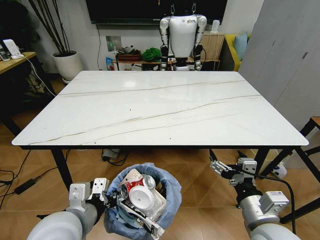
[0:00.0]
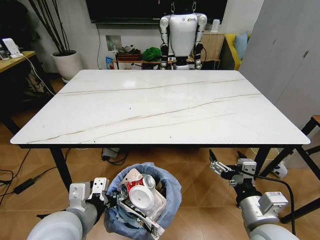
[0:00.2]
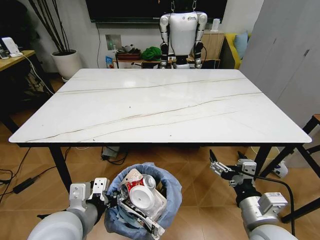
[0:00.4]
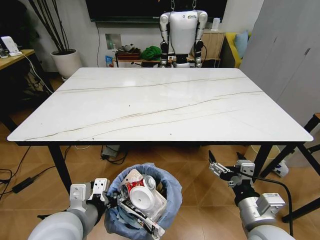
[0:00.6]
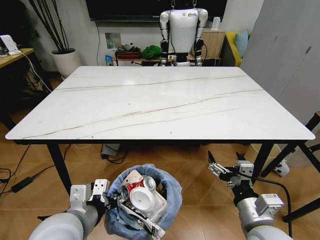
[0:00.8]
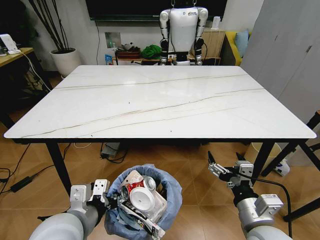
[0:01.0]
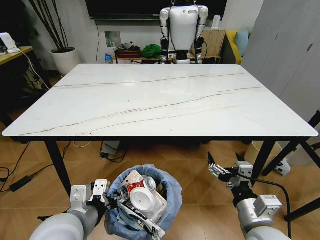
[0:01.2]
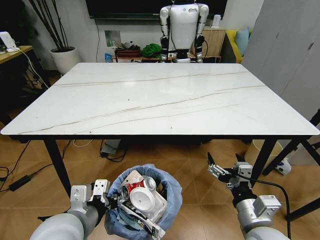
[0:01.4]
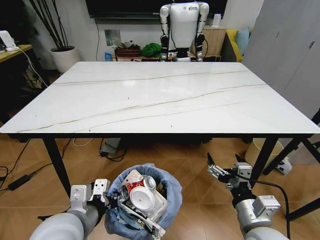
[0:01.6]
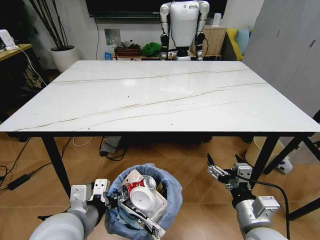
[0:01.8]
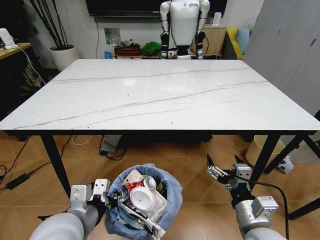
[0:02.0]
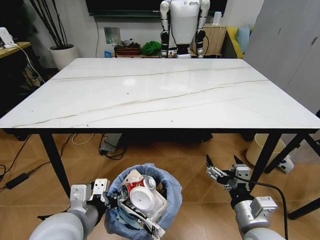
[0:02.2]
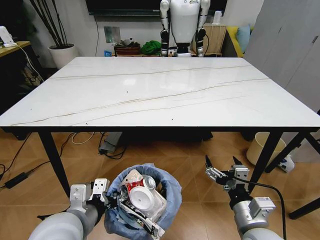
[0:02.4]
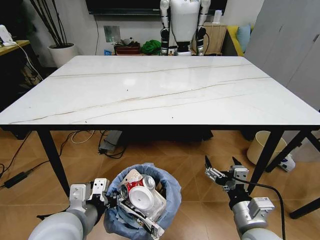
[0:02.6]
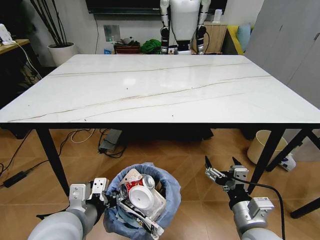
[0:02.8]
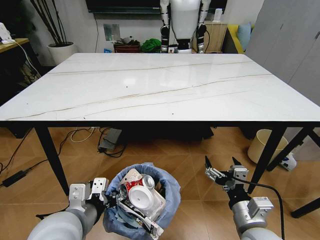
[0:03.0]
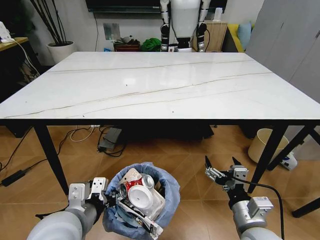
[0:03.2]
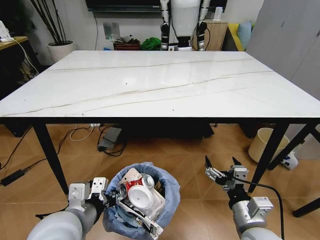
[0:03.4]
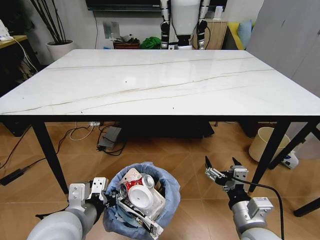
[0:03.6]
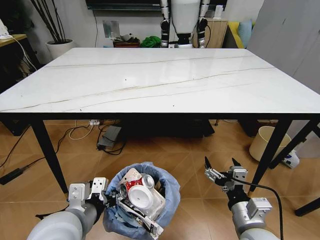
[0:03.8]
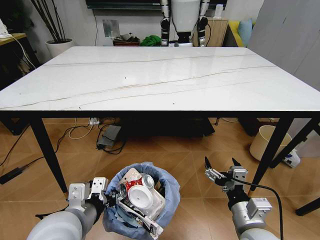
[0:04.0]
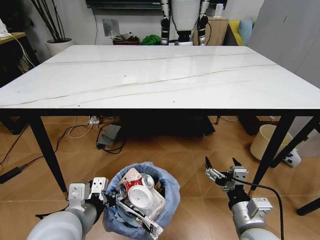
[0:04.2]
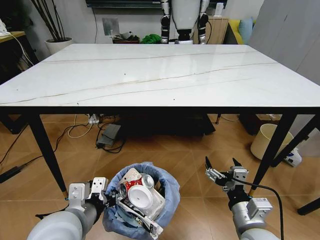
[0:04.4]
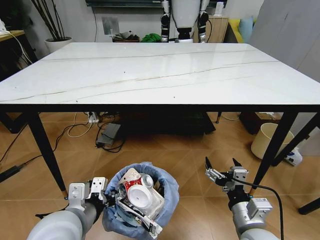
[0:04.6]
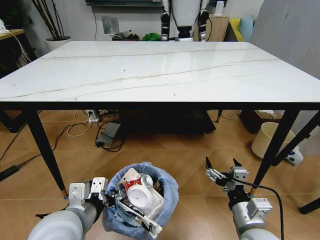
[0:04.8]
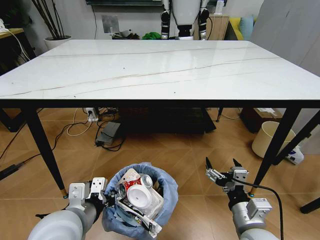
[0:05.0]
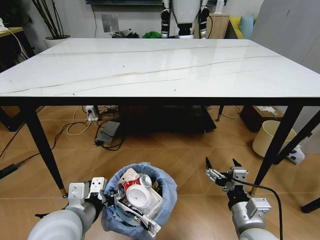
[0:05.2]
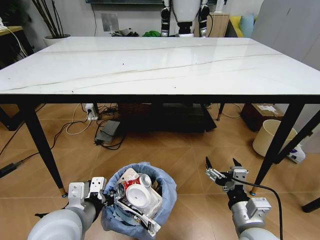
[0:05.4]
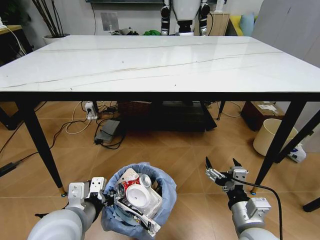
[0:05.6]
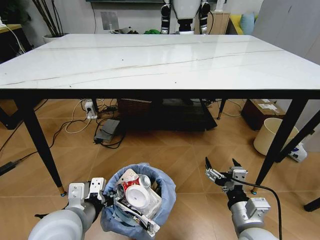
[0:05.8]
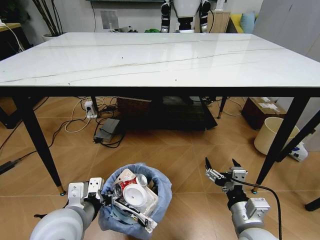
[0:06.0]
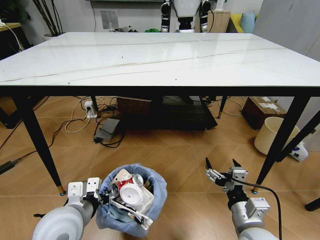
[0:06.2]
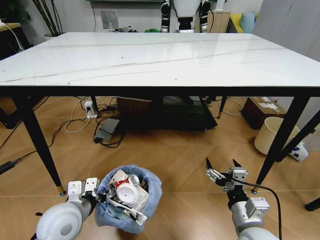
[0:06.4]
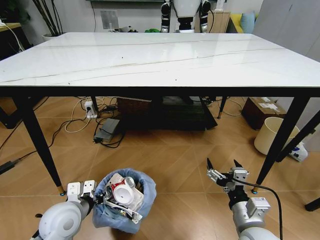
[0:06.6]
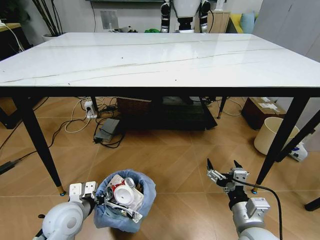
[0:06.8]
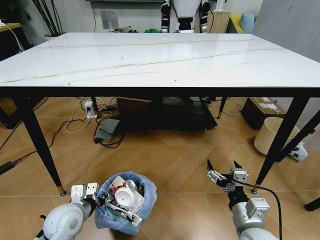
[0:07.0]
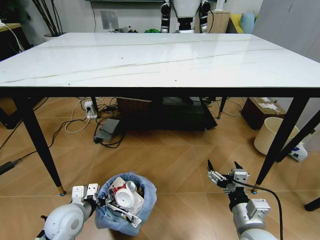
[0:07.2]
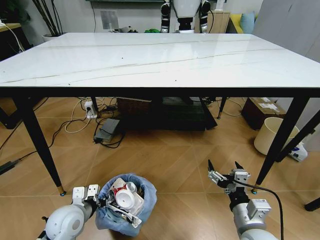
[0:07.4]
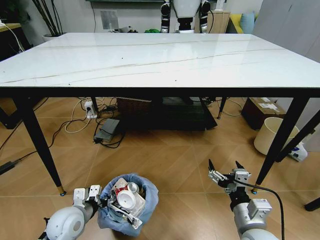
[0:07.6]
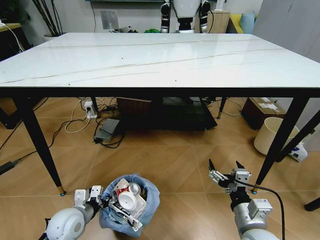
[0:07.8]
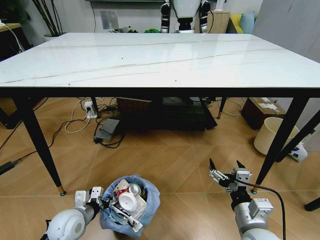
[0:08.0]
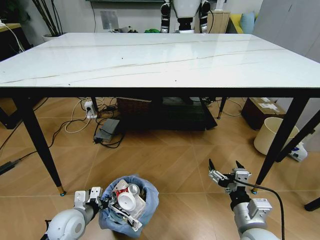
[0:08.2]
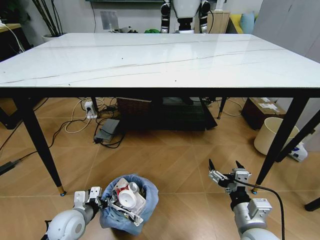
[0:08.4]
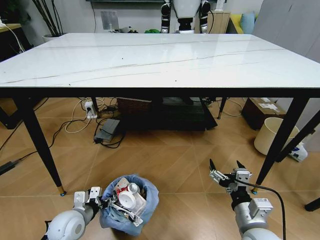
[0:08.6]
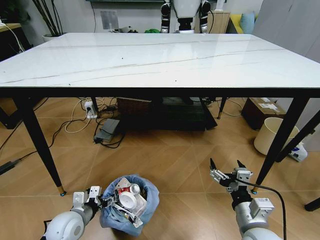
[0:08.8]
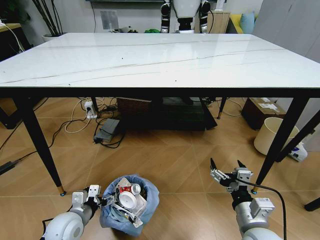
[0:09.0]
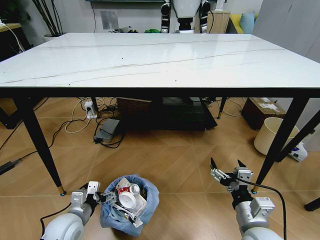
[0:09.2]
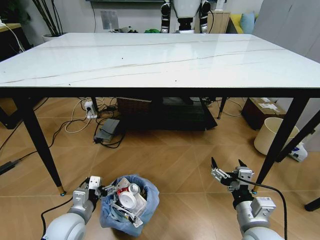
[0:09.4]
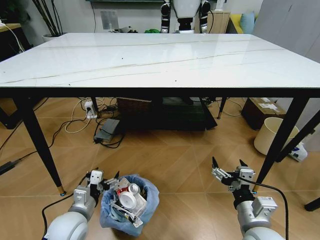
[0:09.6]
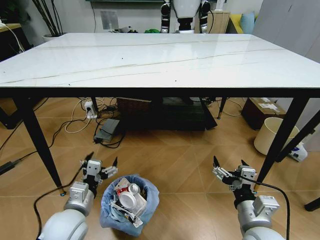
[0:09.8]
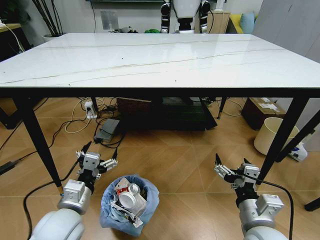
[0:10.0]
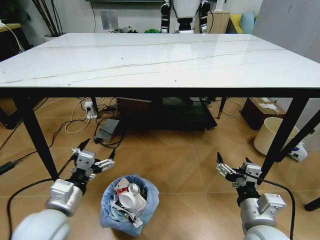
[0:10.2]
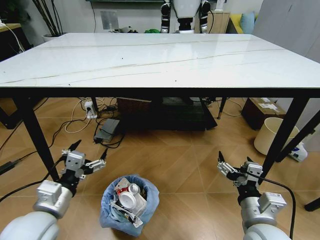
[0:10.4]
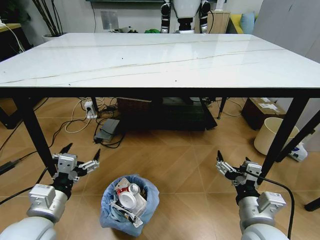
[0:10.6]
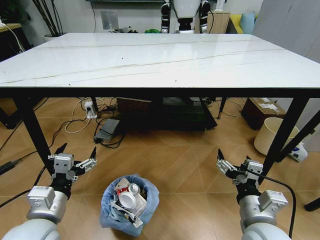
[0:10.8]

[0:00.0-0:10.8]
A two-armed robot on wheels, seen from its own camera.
Task of the whole recording: Pick up the trash bin and place the trash from the table into it.
0:06.2 to 0:07.8: The left gripper shifts approximately 15 cm downward and to the left.
0:07.8 to 0:09.2: The left gripper opens.
0:09.2 to 0:10.8: The left gripper moves upward, approximately 15 cm.

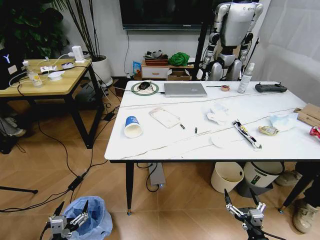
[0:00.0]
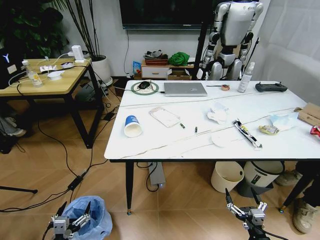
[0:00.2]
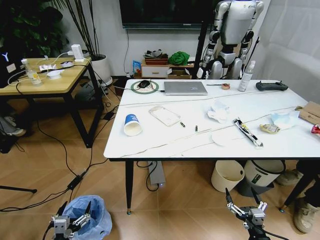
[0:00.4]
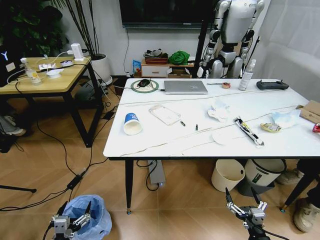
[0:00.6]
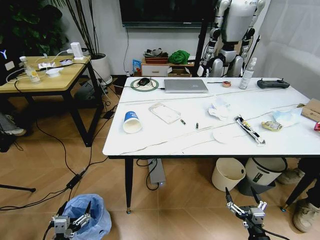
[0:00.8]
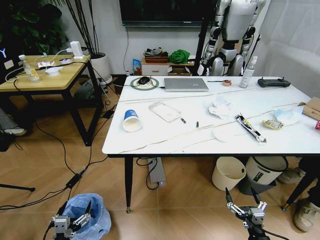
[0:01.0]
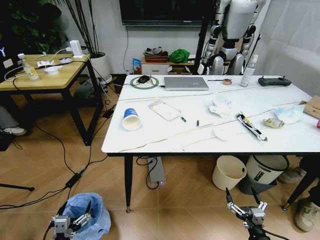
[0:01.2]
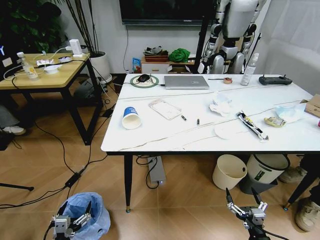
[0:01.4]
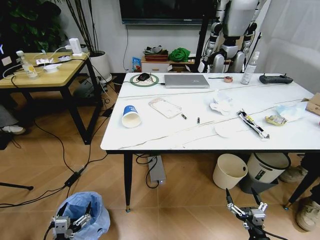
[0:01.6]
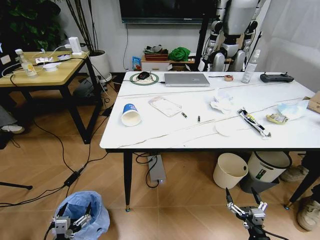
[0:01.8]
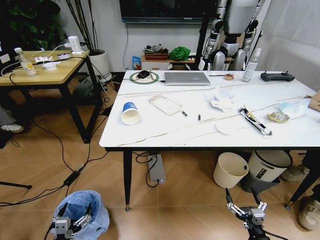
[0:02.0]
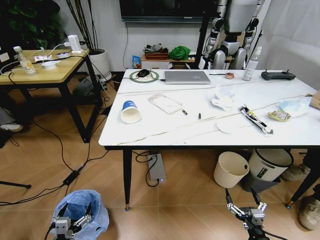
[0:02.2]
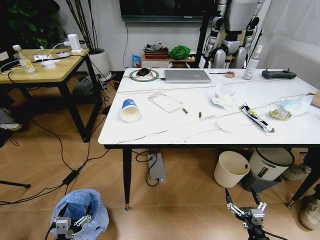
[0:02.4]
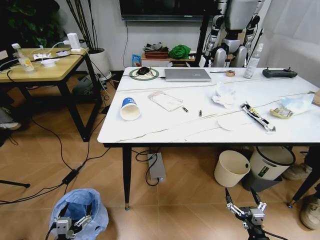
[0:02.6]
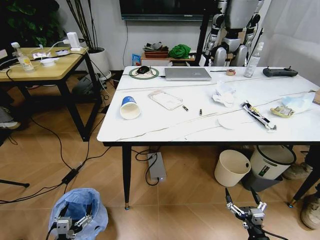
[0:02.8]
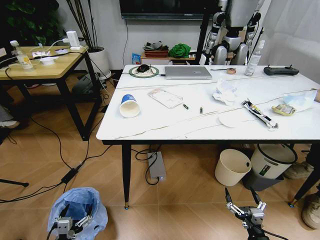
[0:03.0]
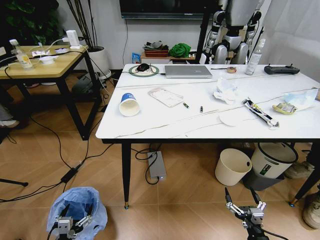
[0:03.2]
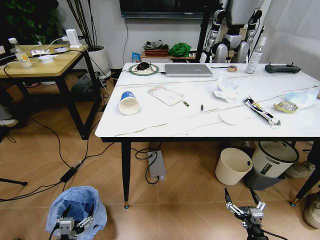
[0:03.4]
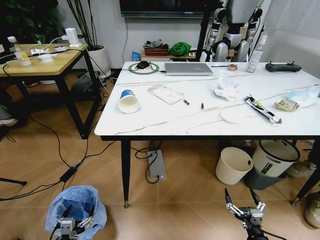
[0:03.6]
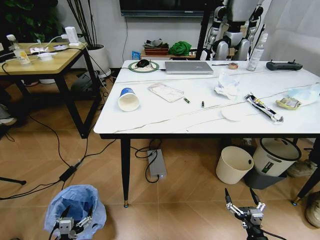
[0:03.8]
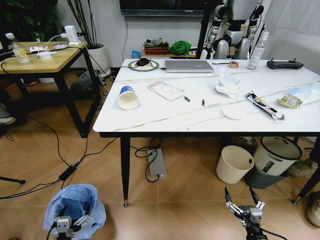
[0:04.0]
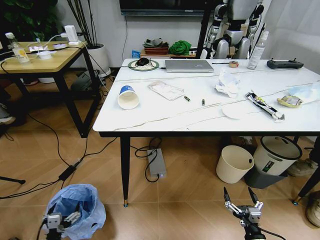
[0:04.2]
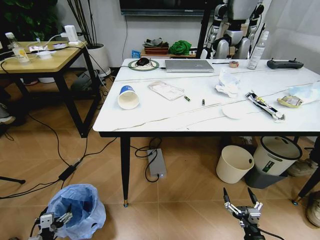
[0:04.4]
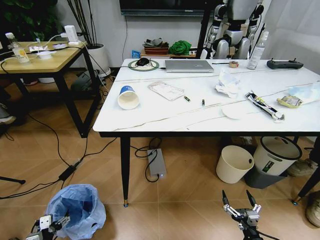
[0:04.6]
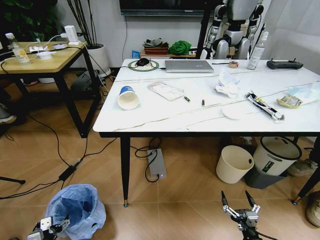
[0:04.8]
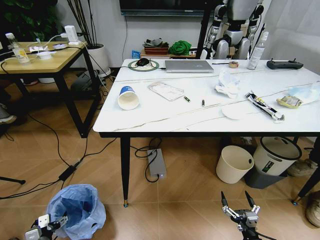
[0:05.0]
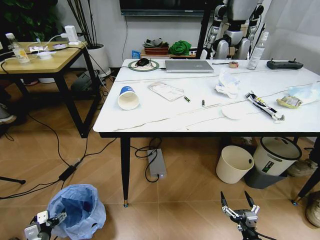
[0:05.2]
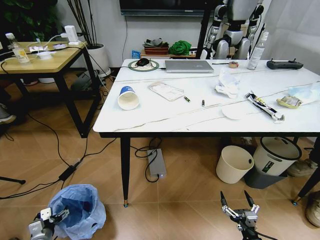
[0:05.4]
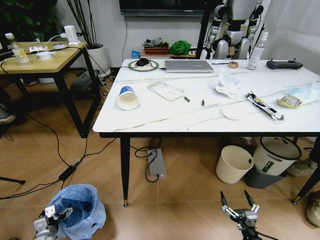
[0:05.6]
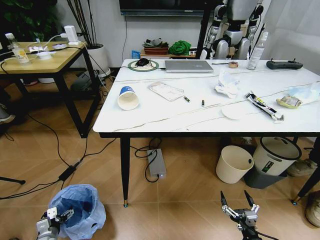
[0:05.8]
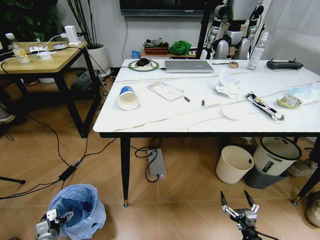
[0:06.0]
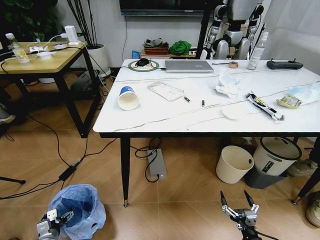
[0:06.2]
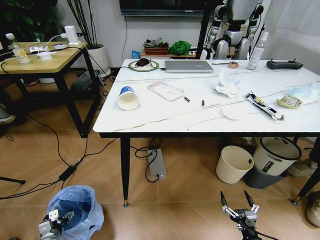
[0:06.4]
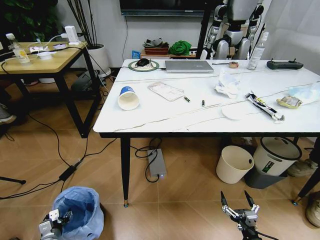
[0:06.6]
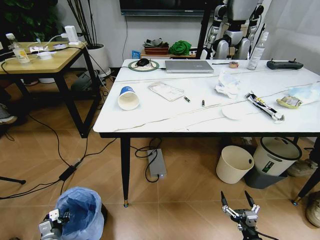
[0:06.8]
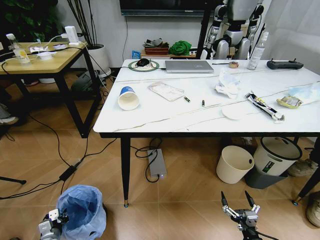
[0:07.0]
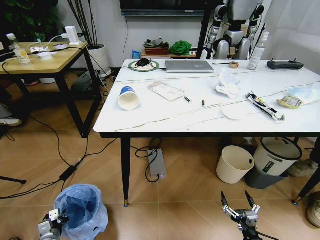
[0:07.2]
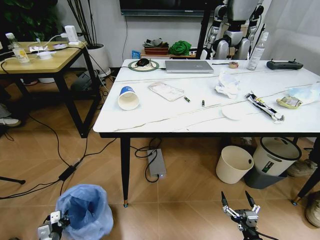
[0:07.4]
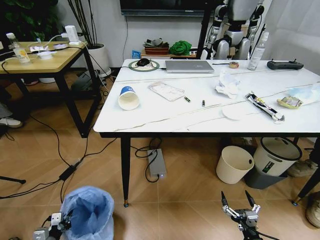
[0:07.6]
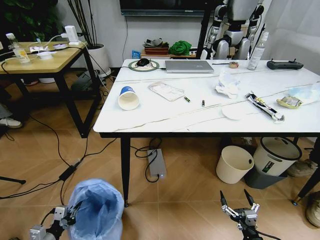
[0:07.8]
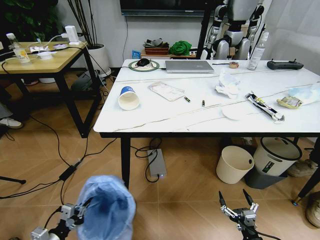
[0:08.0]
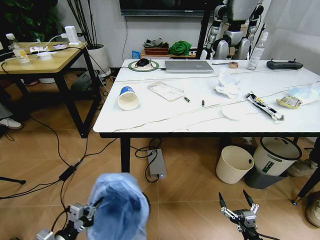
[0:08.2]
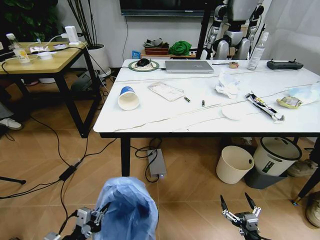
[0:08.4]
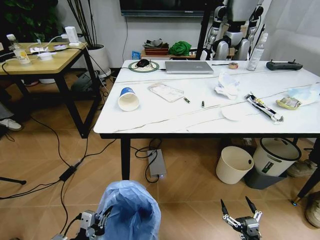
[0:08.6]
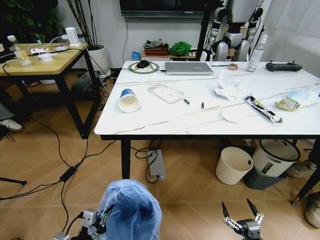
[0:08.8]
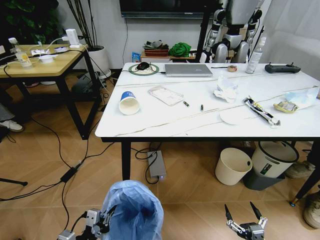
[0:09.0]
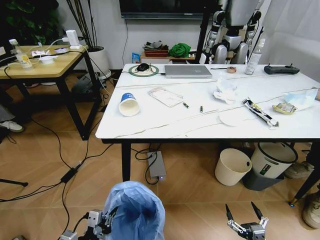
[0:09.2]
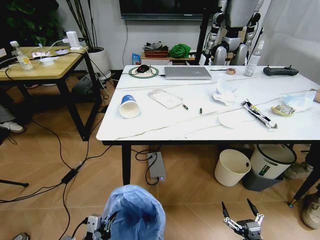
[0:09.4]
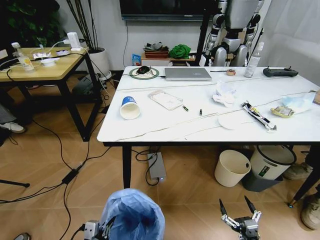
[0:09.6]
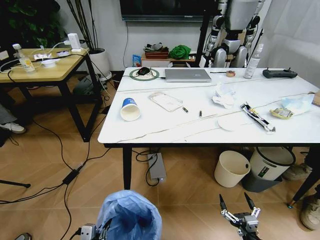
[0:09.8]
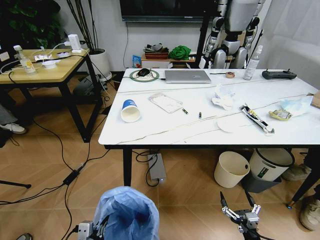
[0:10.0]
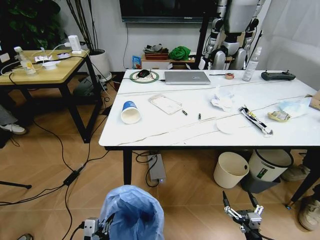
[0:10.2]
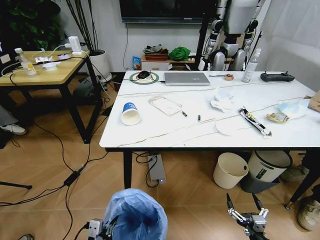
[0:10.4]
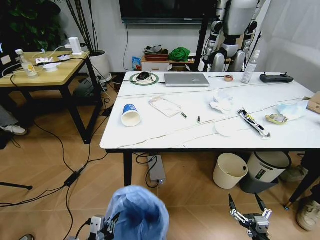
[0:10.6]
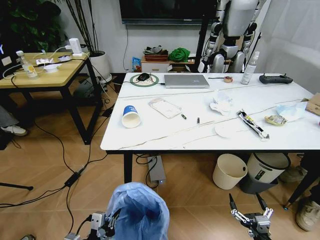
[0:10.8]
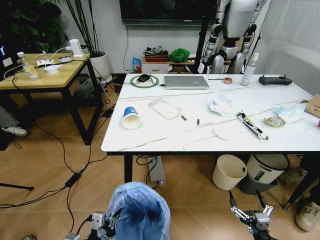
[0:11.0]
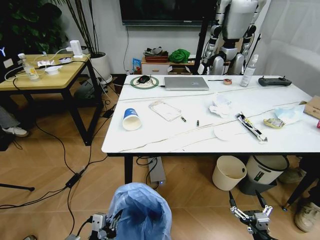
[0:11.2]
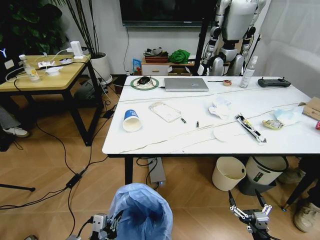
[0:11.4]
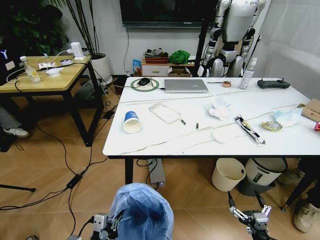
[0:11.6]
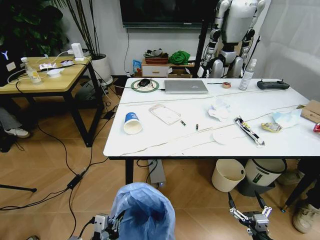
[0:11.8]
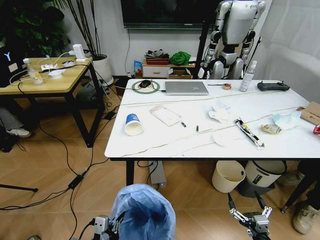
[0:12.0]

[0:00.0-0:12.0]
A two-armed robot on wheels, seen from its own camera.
Task of the whole recording: Pick up the trash bin and place the trash from the table into it.
0:03.0 to 0:04.4: The left gripper goes approximately 10 cm to the left.
0:04.4 to 0:06.0: The left gripper travels forward and downward by approximately 10 cm.
0:06.0 to 0:07.6: The left gripper moves some 5 cm, and closes.
0:07.6 to 0:09.0: The left gripper goes some 20 cm to the right and upward, while the right gripper shifts by about 5 cm.
